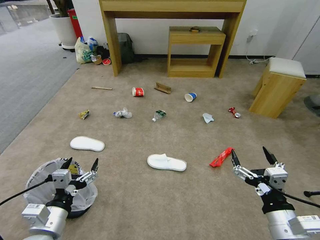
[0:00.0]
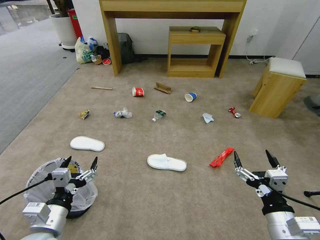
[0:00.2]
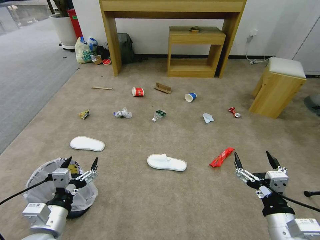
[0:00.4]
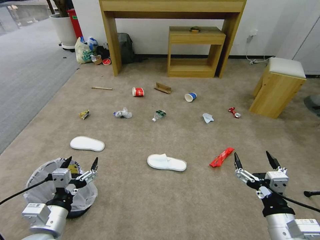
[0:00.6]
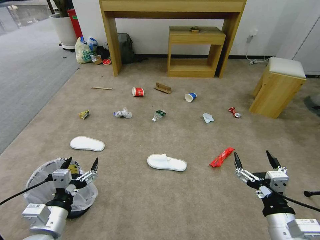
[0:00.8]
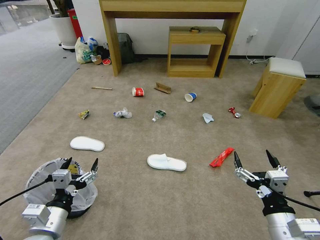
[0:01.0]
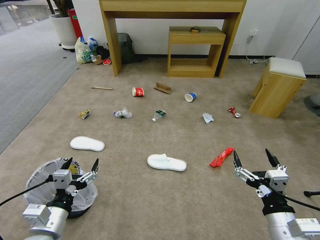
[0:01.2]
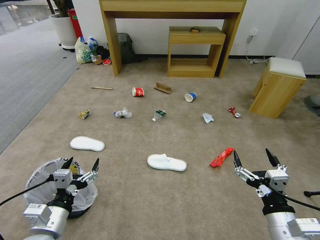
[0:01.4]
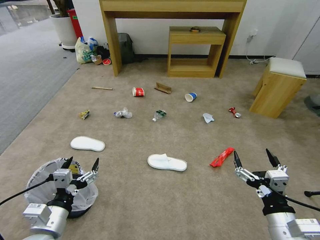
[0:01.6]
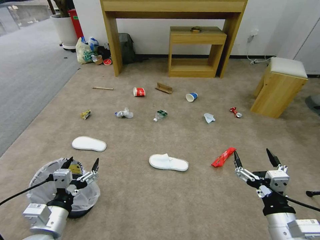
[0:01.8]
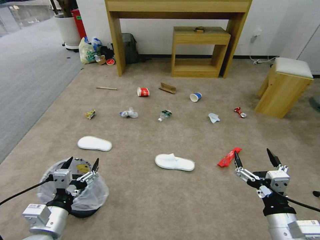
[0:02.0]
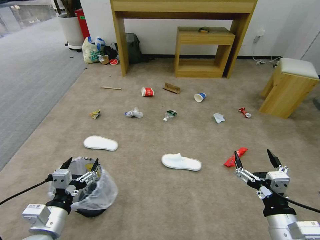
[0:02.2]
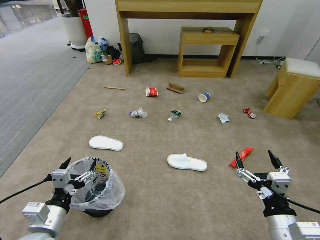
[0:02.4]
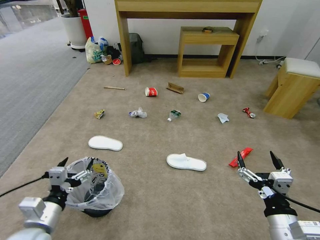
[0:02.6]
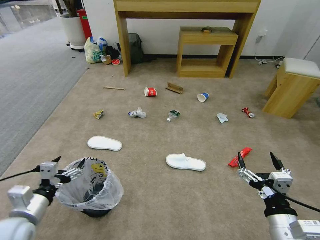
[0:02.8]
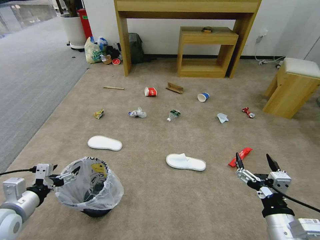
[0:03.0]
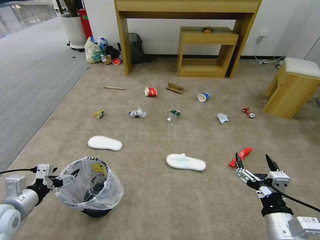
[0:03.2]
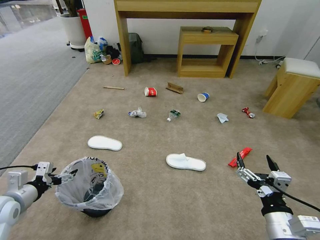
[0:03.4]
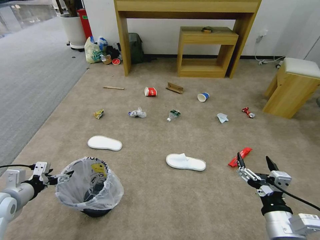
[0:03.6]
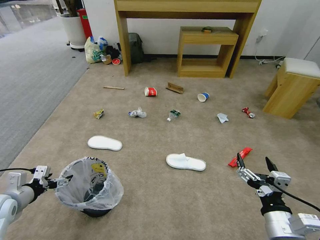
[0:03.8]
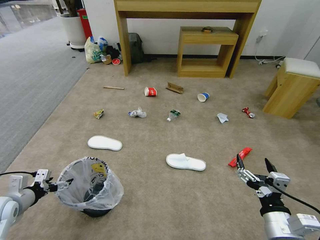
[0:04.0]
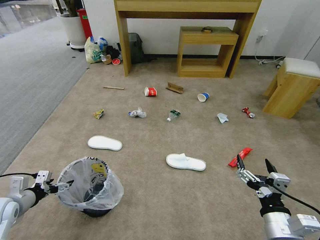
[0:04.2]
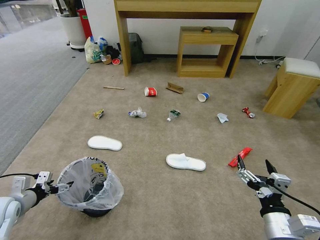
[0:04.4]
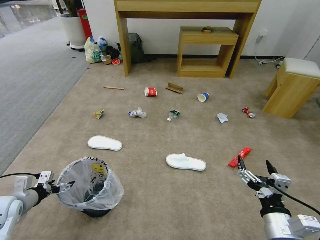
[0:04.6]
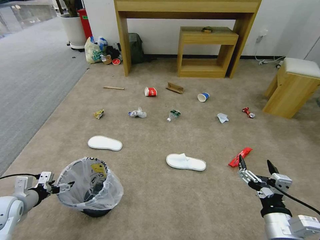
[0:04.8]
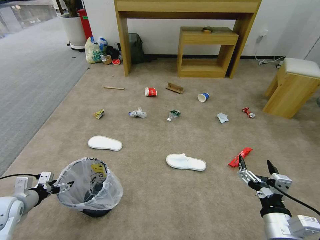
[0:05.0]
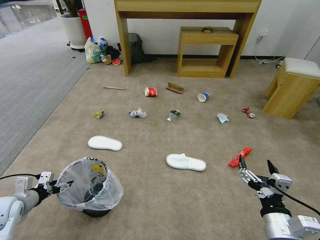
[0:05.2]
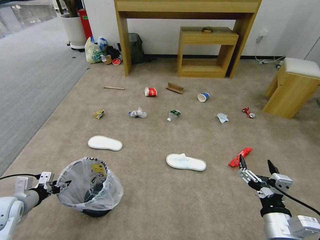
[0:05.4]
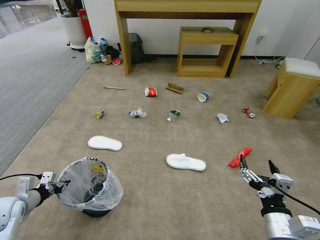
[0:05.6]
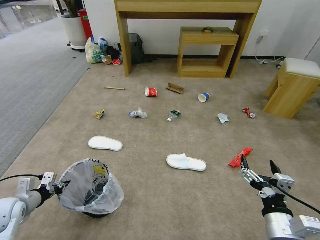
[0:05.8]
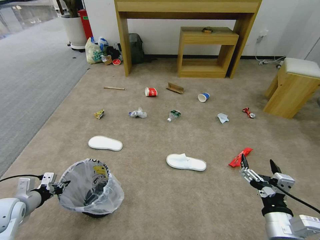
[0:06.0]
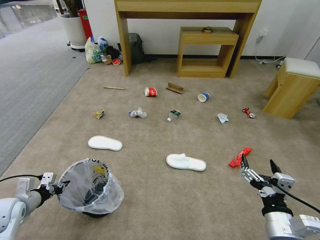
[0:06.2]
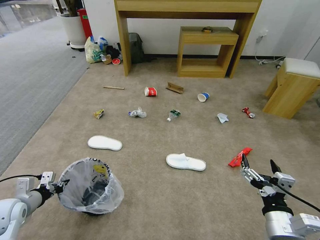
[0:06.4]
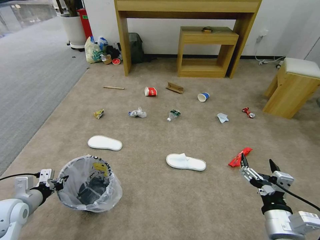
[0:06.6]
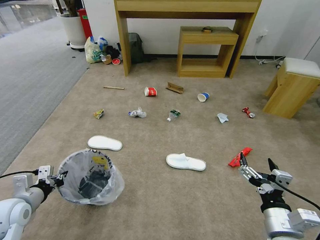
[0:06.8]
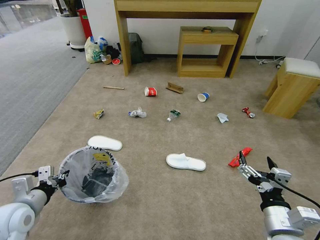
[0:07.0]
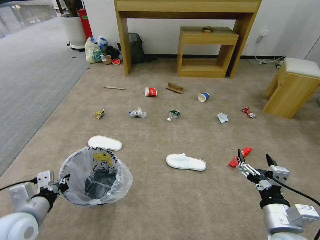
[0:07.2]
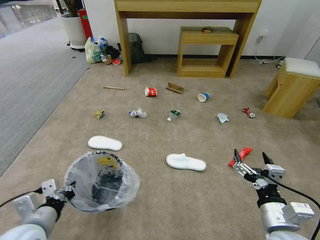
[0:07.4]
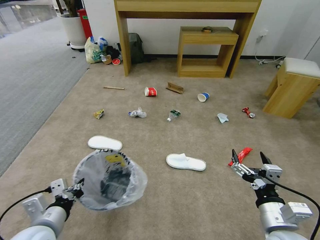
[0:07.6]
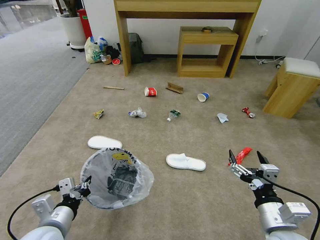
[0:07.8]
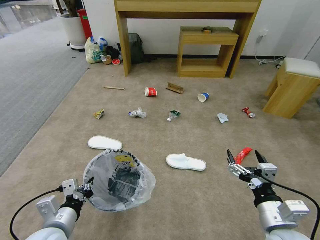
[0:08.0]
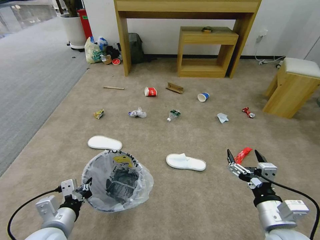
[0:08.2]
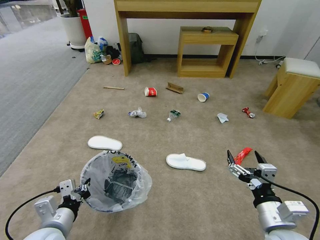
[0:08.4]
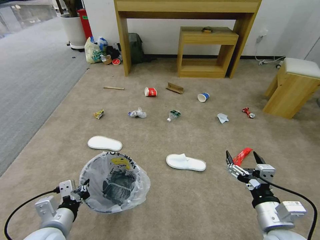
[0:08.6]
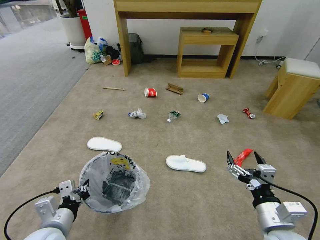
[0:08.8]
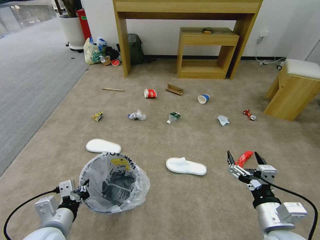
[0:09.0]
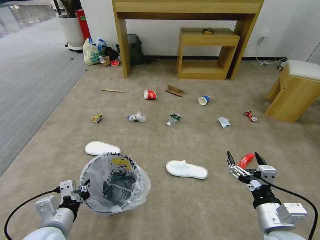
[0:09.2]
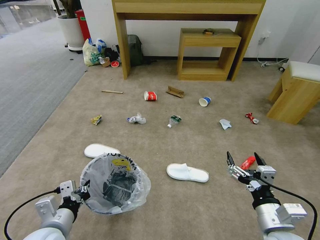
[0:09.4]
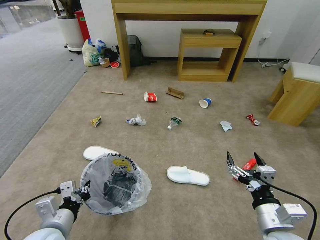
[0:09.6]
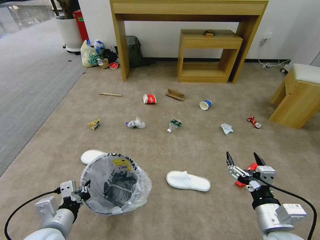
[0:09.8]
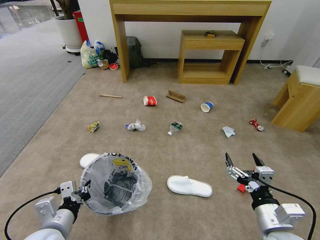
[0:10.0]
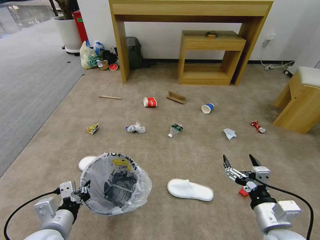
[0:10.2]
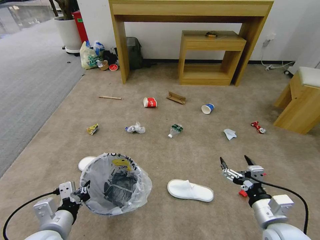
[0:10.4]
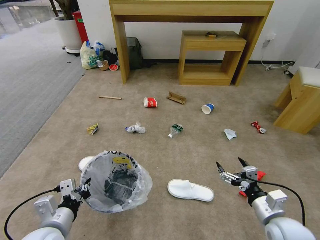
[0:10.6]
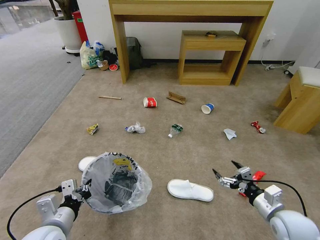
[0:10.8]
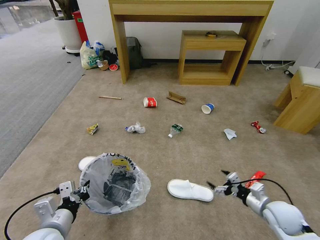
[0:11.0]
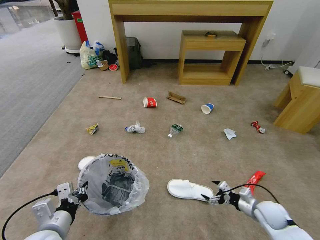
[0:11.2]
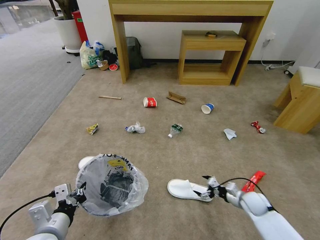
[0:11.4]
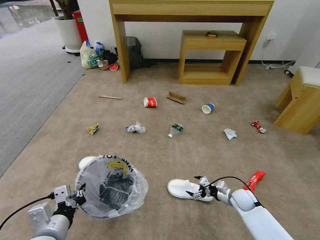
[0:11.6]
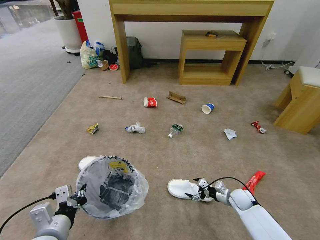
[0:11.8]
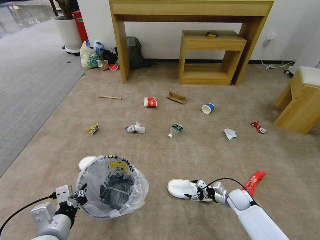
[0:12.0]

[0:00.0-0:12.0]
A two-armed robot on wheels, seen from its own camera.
Task of the whole recording: Pick up the trash bin and place the garbage on the floor into it.
0:01.6 to 0:03.0: The left gripper moves to the left, some 10 cm.
0:03.0 to 0:04.4: The left gripper heads to the left, downward and forward, covering roughly 10 cm.
0:04.4 to 0:06.0: The left gripper closes up.
0:06.0 to 0:07.6: The left gripper shifts approximately 20 cm to the right and backward.
0:07.6 to 0:09.0: The grippers move only a little.
0:10.4 to 0:12.0: The right gripper moves downward and forward, some 30 cm.

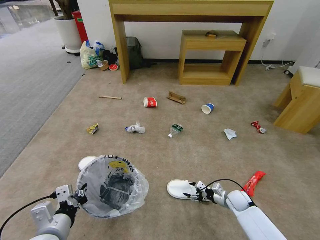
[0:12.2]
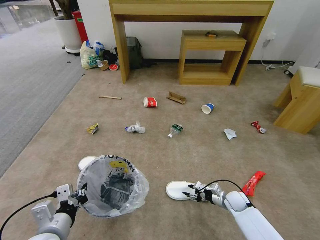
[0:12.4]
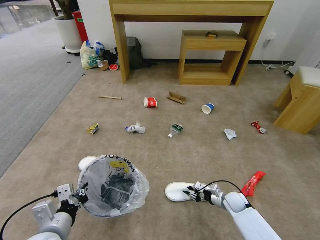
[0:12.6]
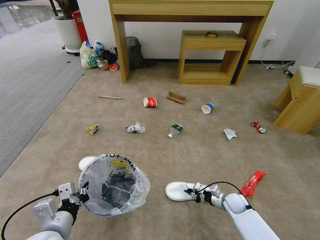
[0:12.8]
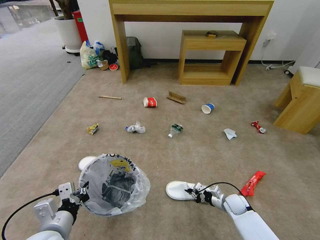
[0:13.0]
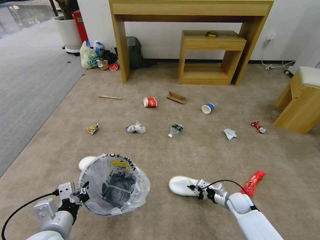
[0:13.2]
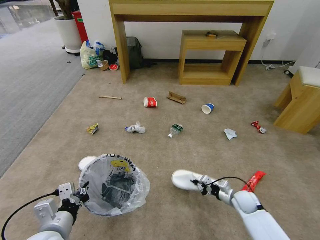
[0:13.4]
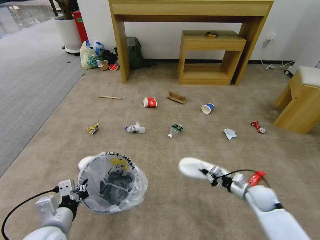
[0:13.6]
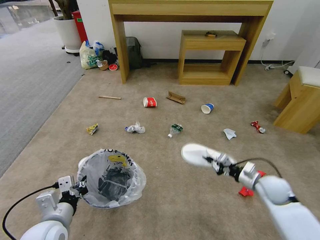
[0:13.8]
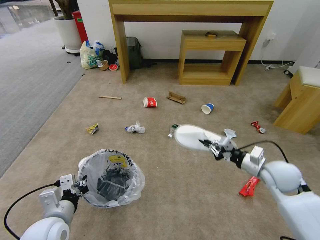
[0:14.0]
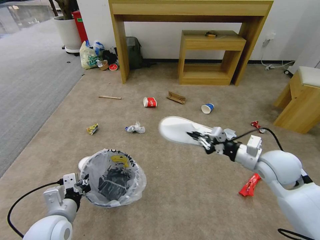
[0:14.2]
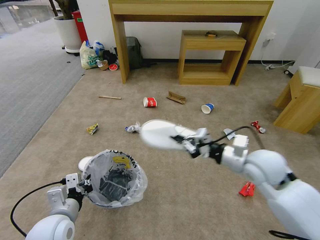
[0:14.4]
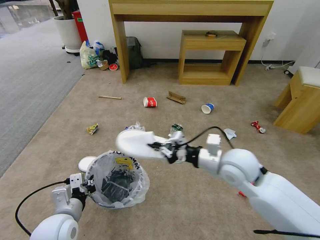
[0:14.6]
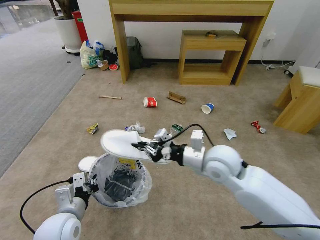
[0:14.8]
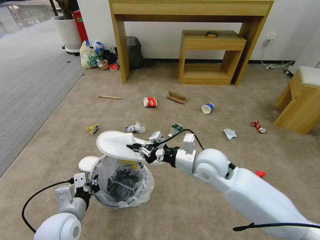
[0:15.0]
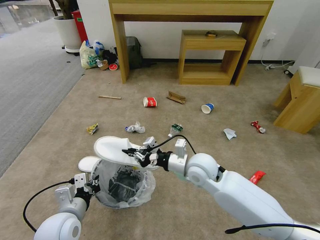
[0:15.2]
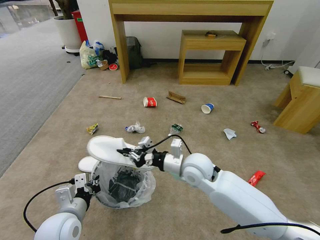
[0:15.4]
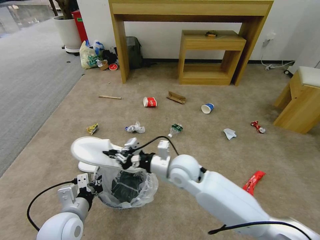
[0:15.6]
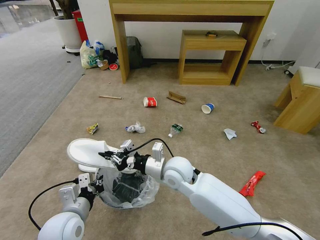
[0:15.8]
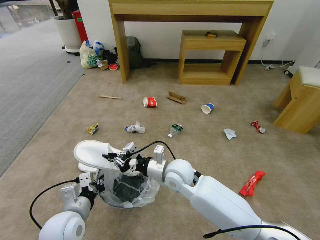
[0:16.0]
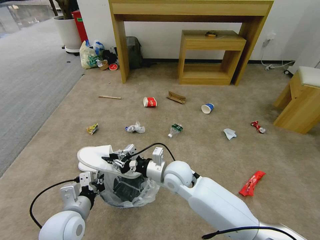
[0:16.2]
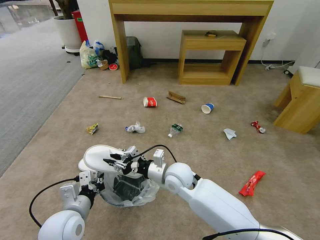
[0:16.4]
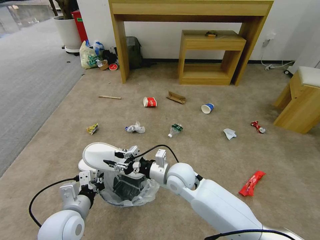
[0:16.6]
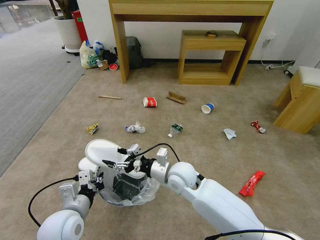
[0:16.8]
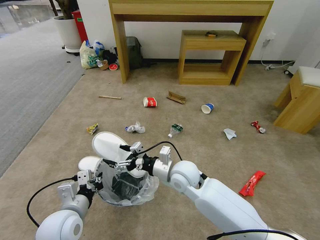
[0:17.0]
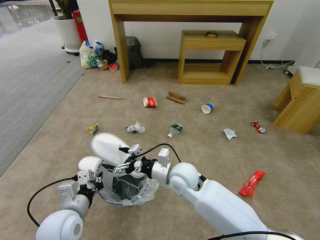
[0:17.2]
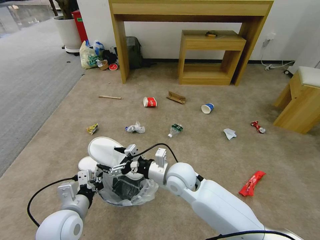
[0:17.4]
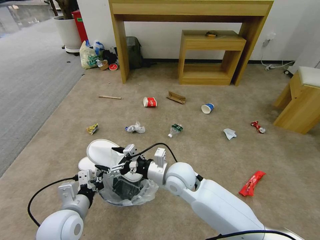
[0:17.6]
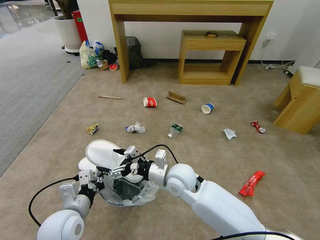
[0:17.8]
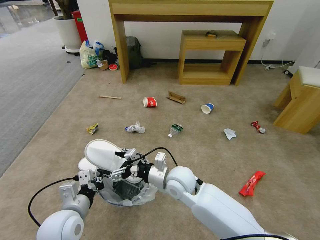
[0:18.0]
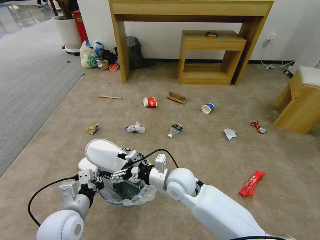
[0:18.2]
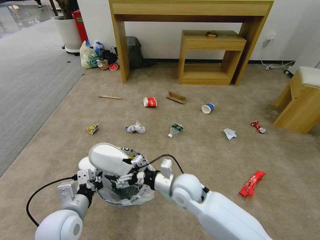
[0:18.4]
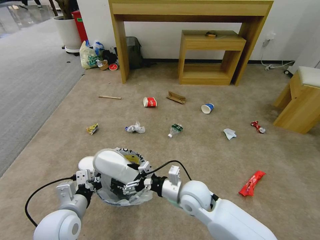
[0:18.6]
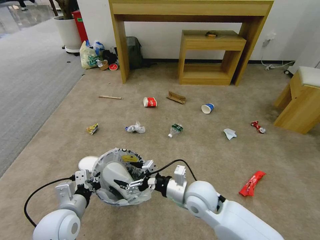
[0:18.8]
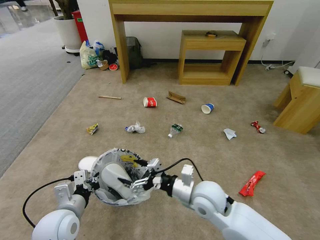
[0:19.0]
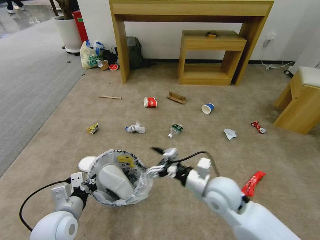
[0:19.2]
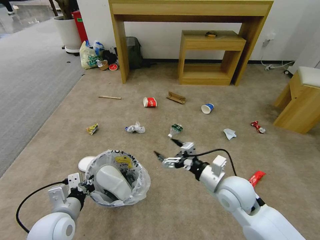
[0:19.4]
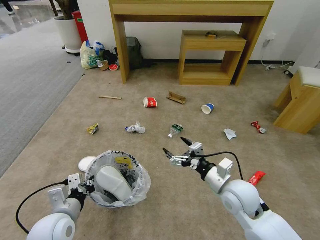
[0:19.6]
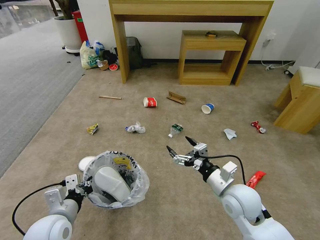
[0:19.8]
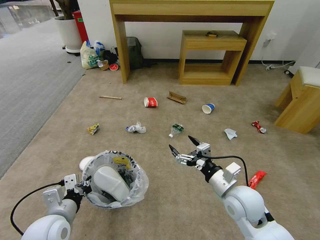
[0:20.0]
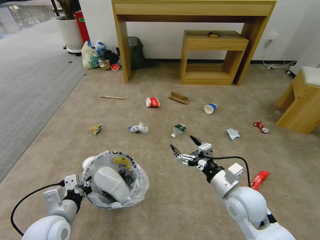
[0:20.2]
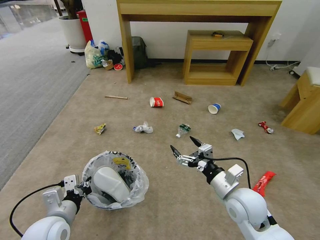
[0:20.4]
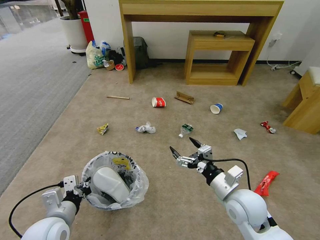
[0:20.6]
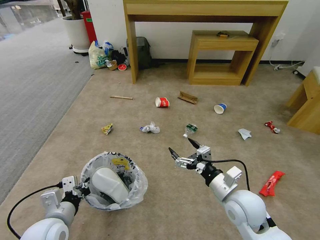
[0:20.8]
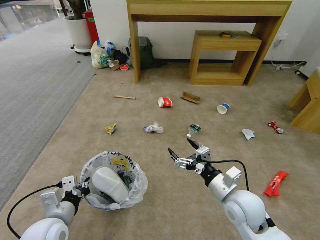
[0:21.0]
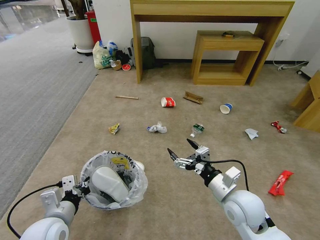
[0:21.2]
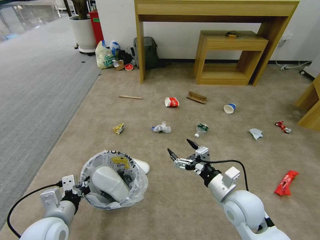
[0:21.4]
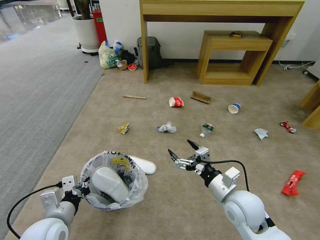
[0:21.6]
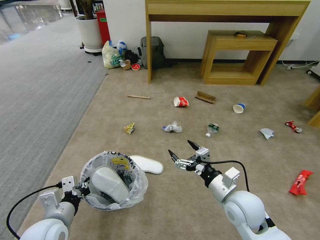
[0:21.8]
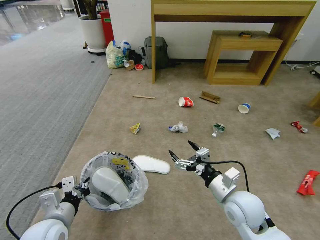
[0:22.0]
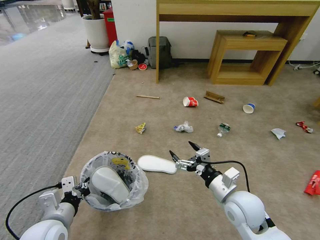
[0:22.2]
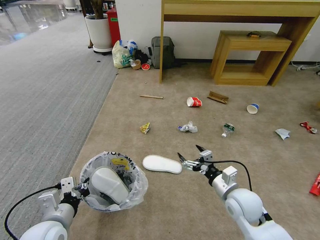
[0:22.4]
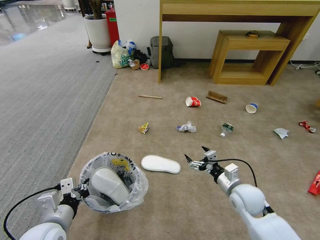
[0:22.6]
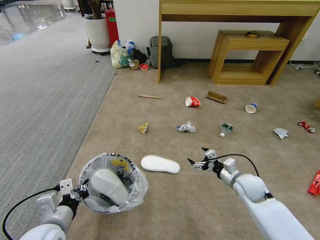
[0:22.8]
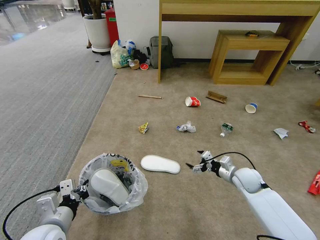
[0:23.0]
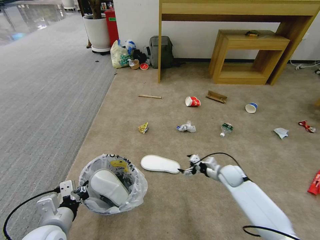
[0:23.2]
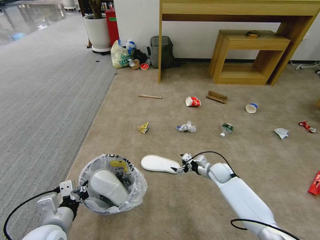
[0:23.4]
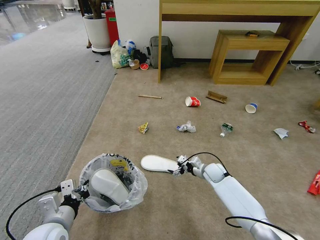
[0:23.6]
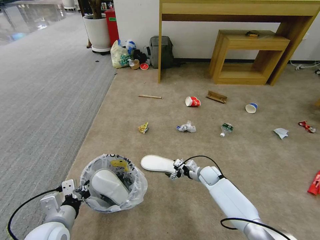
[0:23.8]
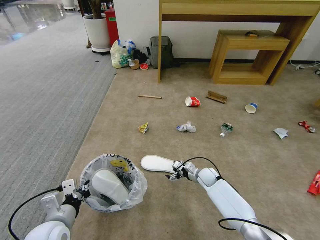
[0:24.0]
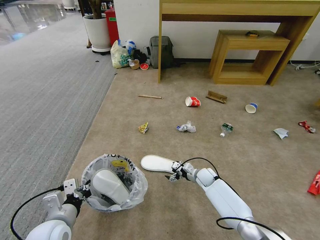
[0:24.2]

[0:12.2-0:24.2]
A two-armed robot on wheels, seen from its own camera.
Task of the whole recording: Pick up the trash bin and place the garbage on the floor into it.
0:12.2 to 0:13.8: The right gripper goes roughly 15 cm upward, and closes.
0:13.8 to 0:15.2: The right gripper is displaced to the left and upward by about 30 cm.
0:15.2 to 0:16.6: The right gripper goes some 5 cm to the left, and opens.
0:16.6 to 0:18.2: The right gripper opens its fingers.
0:18.2 to 0:19.8: The right gripper goes some 15 cm to the right.
0:21.2 to 0:22.6: The right gripper heads downward and to the right, covering approximately 10 cm.
0:22.6 to 0:24.2: The right gripper travels downward and forward by some 25 cm.
